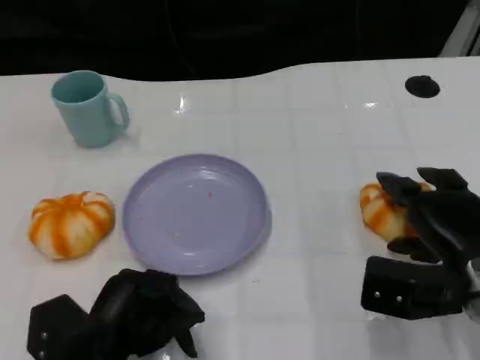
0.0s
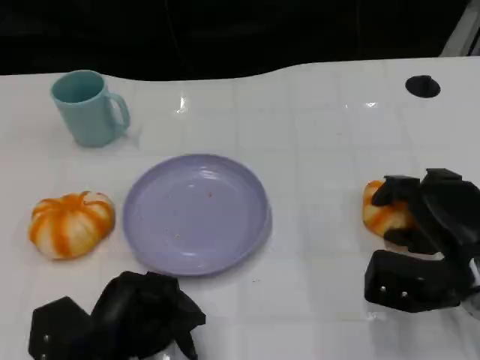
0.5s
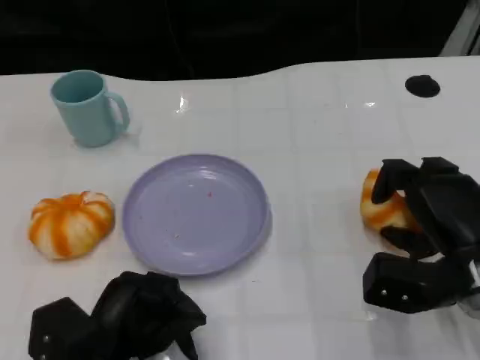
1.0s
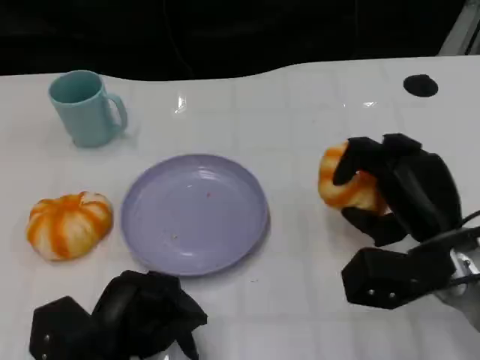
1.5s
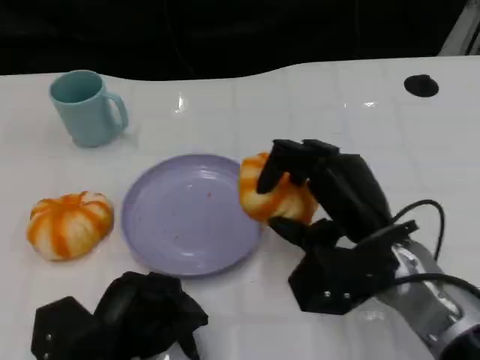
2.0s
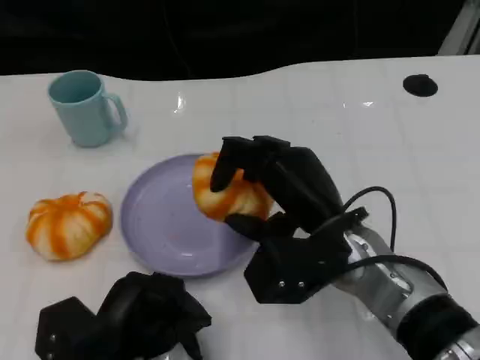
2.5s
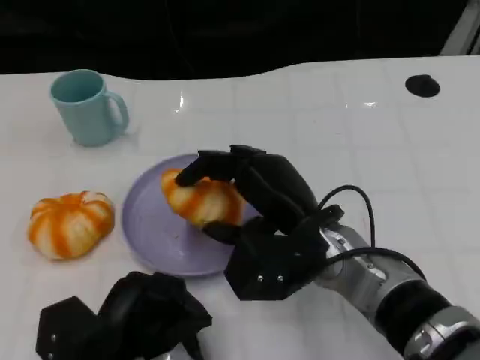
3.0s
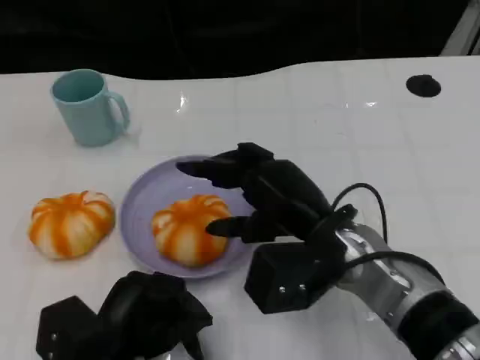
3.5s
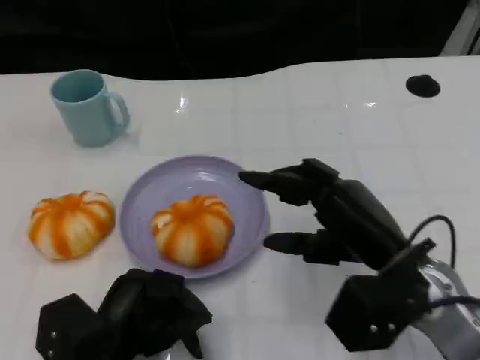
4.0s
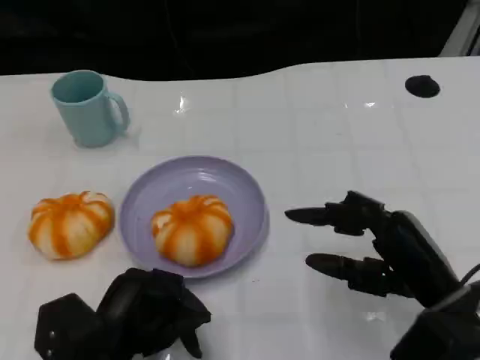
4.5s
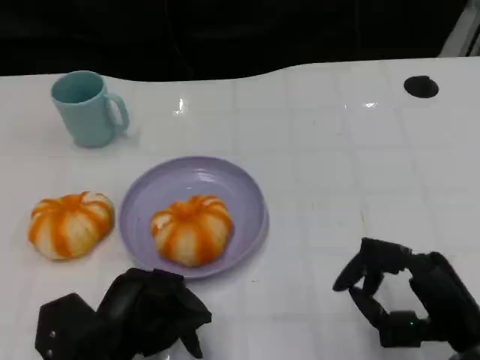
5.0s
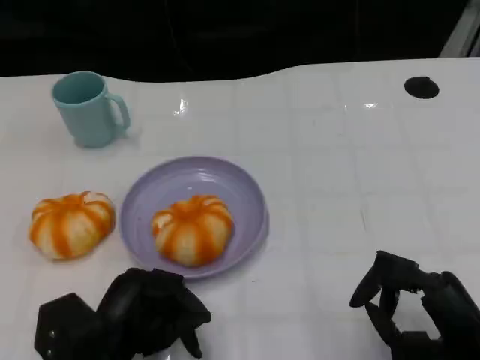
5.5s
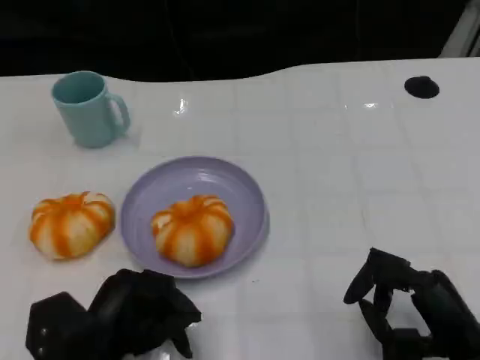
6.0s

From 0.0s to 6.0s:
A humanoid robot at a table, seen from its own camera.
Task of the whole recording: Grasp the bread from the table and place it into the plate.
From 0.0s to 2.0s: The right hand shifts roughly 10 cm to the left.
From 2.0s to 4.0s: The hands move only a little.
From 4.0s to 6.0s: The right hand travels backward, to the right and downward by roughly 10 cm.

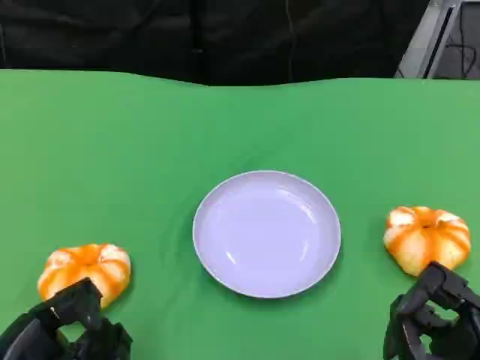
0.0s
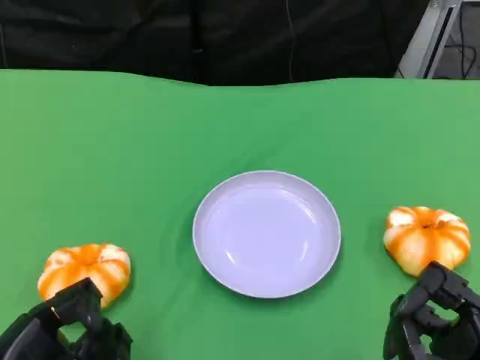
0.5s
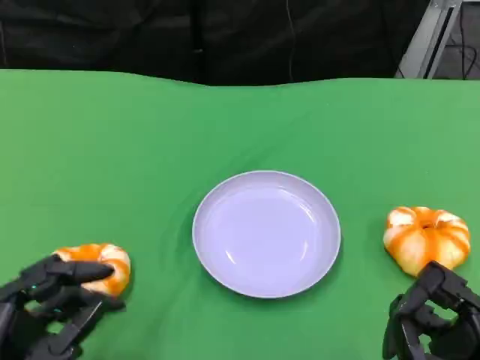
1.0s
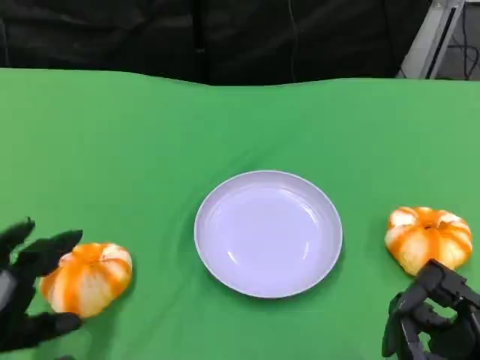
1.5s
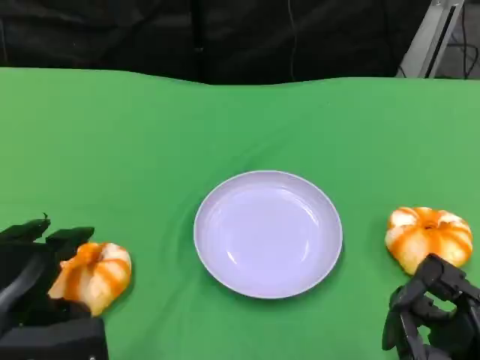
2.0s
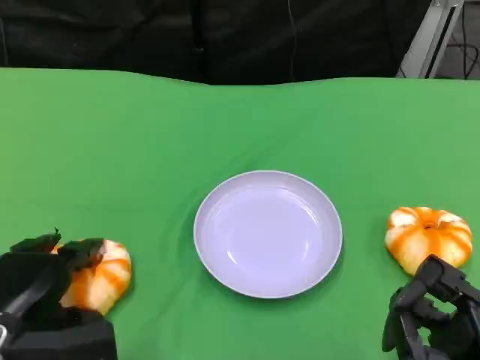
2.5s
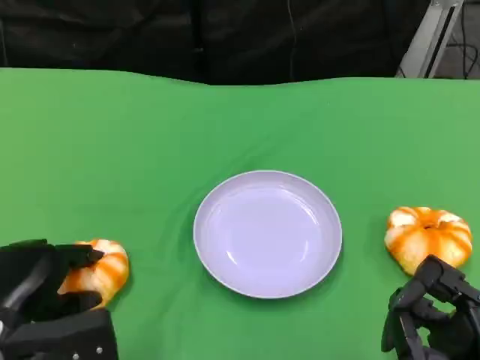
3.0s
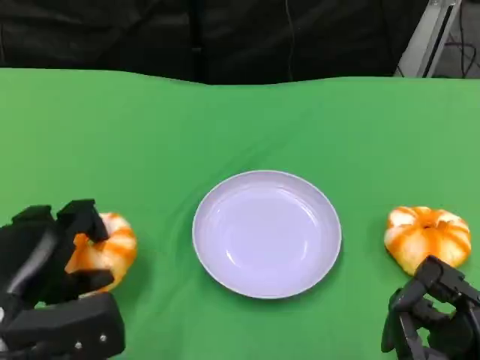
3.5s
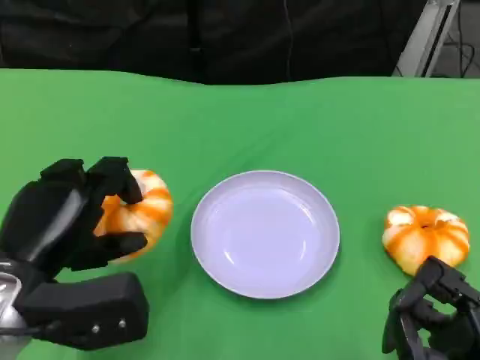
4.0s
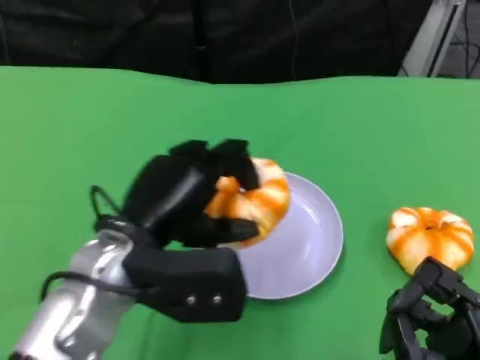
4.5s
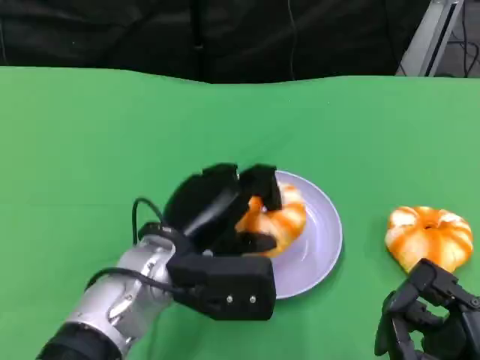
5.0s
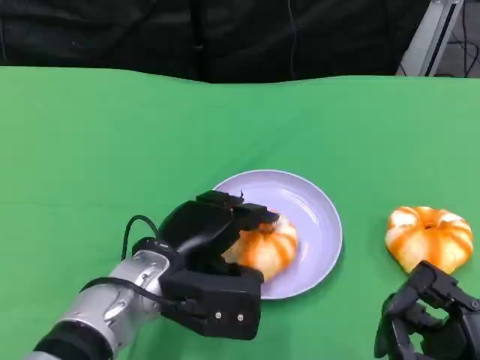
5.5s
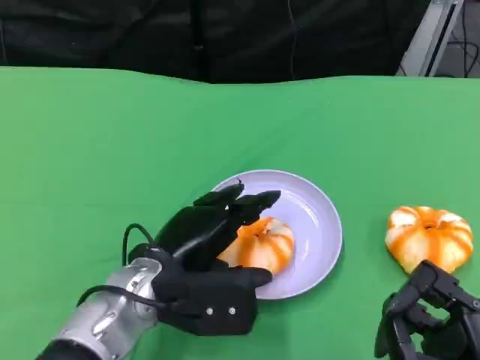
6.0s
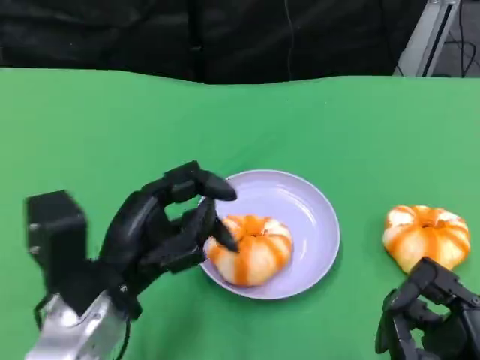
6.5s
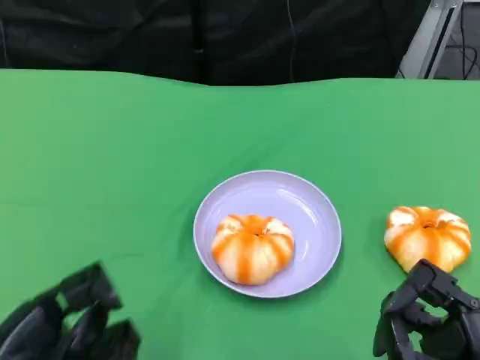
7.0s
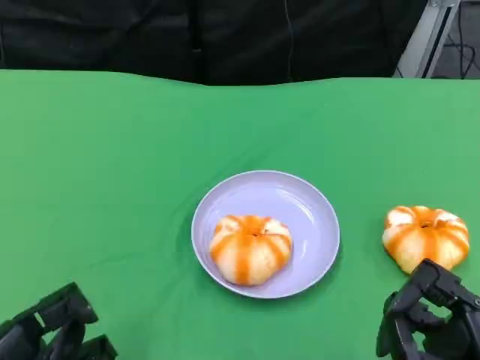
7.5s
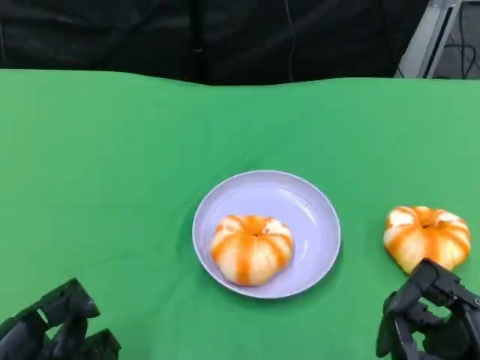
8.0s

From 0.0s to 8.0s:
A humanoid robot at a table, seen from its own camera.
Task of the whole recording: Grasp the bread from the table and place it into the plate.
From 0.0s to 2.0s: The left hand heads forward, covering some 10 cm.
From 2.0s to 4.0s: The left hand travels upward by about 5 cm.
From 4.0s to 6.0s: The left hand goes about 10 cm to the right.
From 6.0s to 8.0s: The left hand is displaced to the left and backward by about 20 cm.
